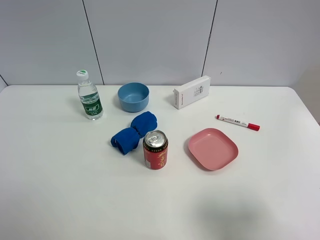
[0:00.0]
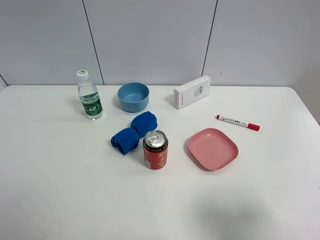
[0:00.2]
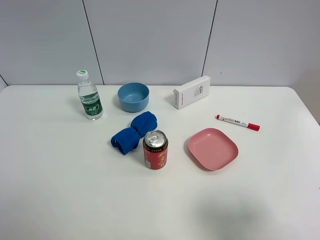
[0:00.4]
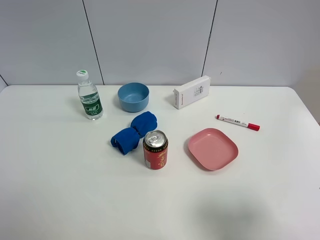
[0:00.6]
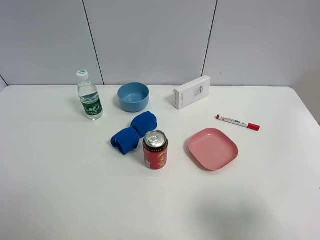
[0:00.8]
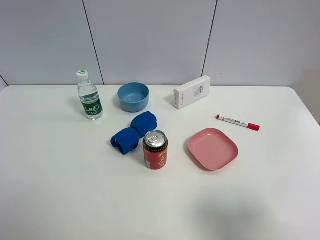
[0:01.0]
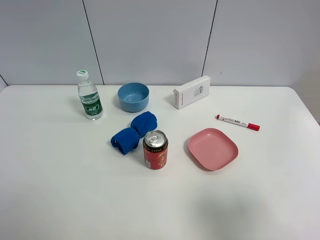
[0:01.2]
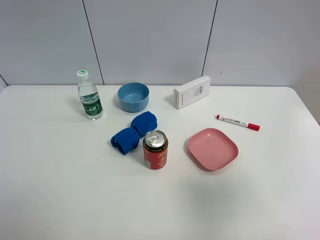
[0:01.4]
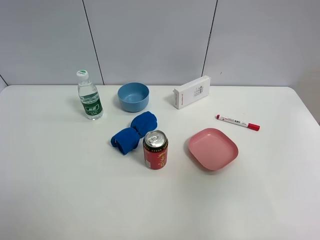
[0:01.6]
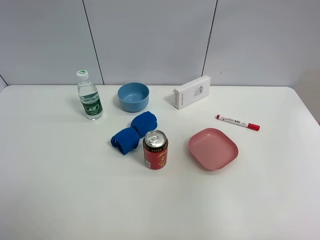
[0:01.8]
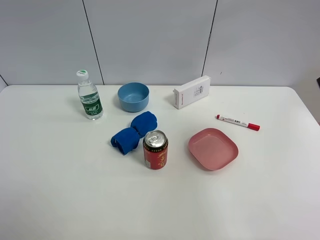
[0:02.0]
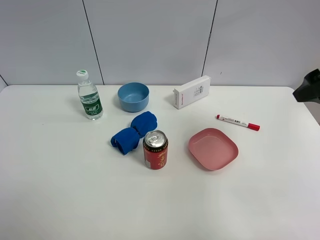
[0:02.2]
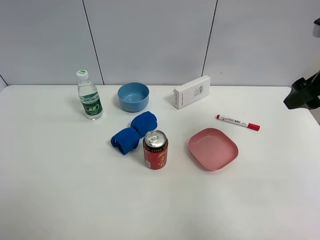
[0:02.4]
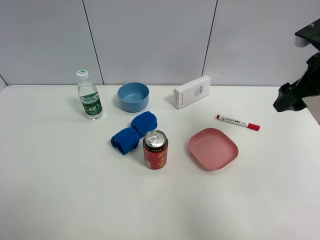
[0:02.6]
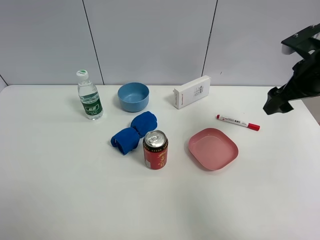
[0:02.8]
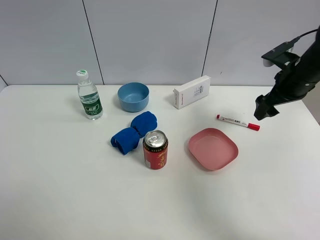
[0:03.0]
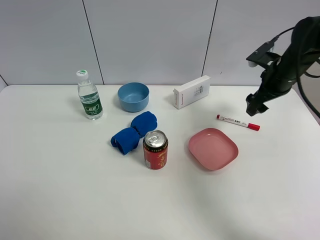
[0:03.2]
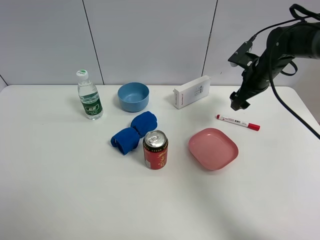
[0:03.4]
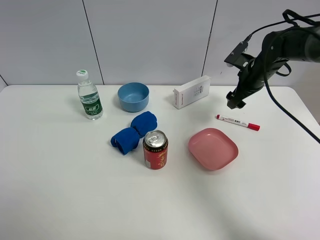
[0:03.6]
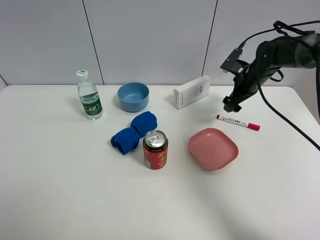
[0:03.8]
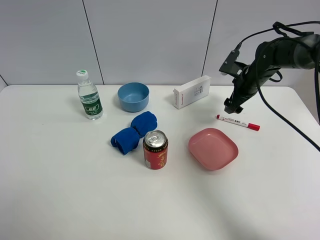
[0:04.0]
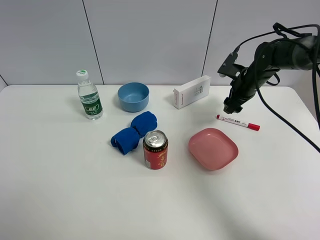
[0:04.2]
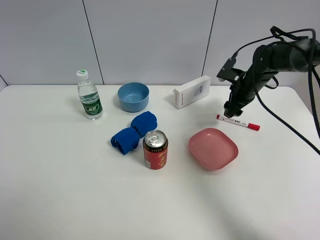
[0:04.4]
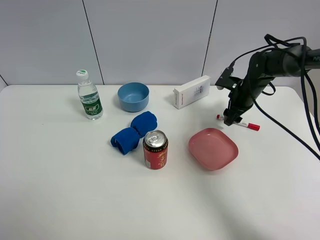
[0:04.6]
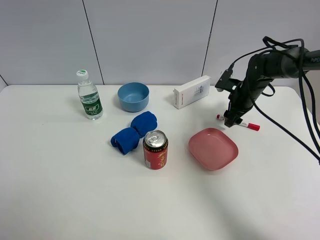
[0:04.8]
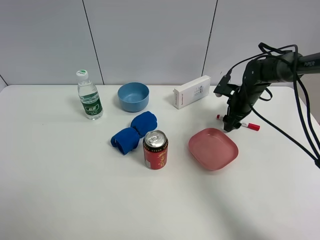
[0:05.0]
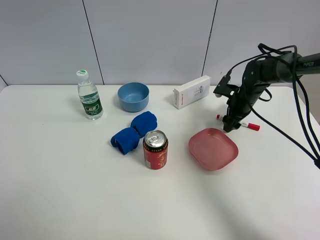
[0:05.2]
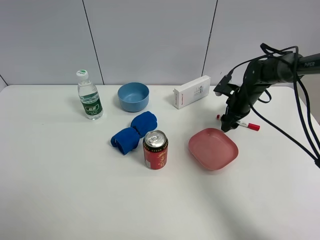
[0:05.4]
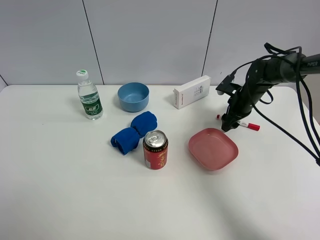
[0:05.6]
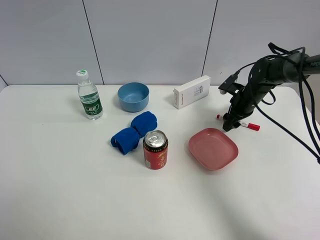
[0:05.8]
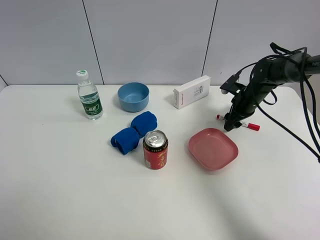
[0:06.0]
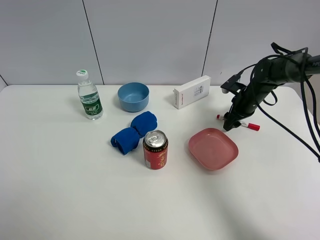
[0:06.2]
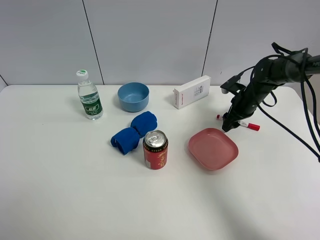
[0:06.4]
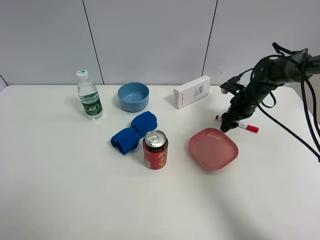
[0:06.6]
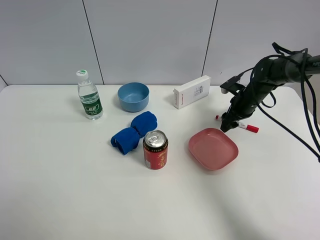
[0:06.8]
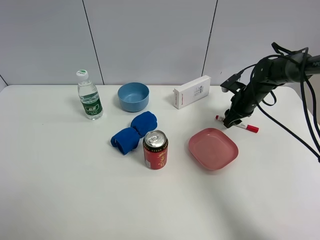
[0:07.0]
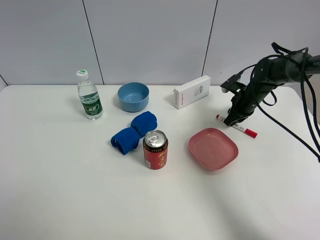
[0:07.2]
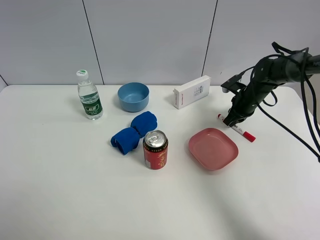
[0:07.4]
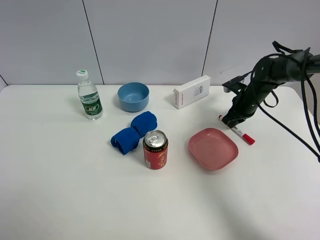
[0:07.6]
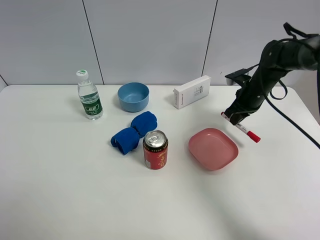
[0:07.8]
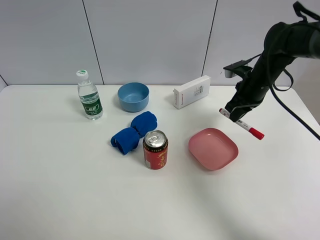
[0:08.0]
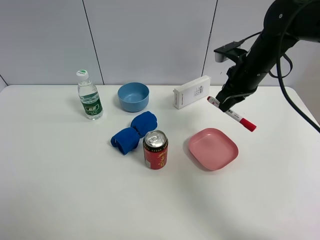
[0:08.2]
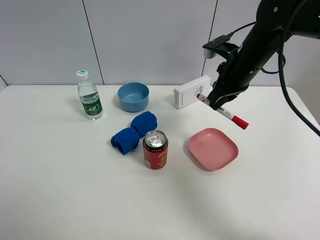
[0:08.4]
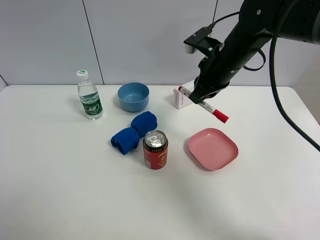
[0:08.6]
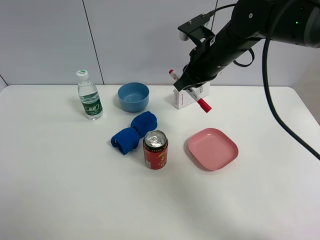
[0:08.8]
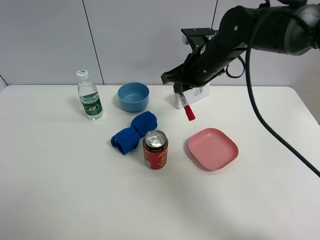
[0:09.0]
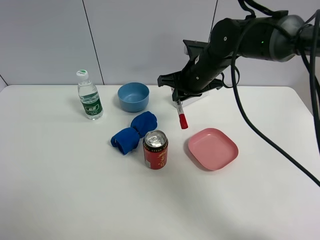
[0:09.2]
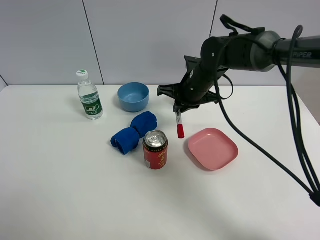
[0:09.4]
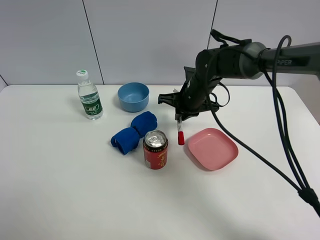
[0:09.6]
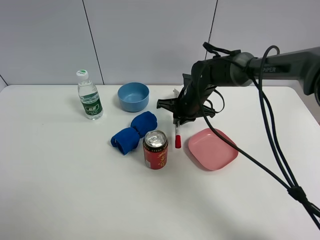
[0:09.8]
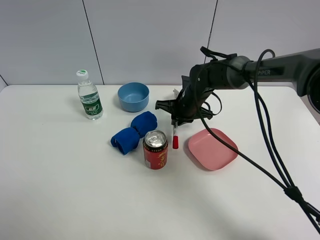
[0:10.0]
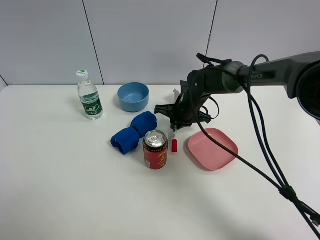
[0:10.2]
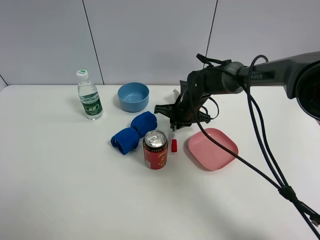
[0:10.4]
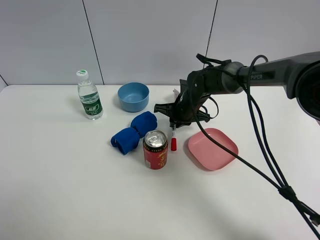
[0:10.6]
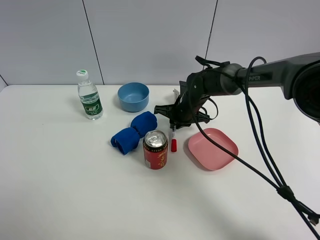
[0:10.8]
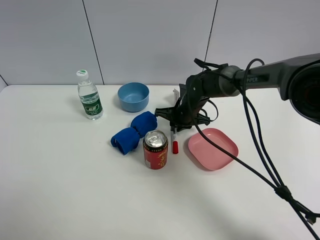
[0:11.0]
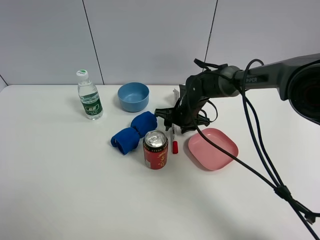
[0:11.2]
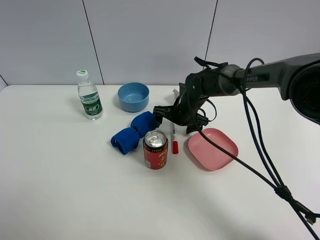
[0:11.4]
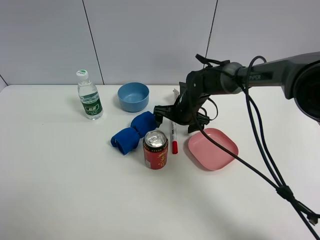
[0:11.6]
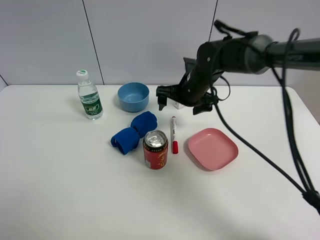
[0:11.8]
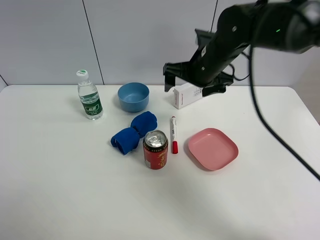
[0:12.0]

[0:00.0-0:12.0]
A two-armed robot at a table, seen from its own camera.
Task of the whole recording: the gripper move the object.
Step, 0.0 to 7.4 s: Grasp the red marker pen with the right gripper.
Step, 7.6 to 11.2 s: Place the red marker pen on the table with the right gripper.
0.0 to 1.6 s: The right gripper shifts roughly 15 cm upward and forward.
1.6 to 3.0 s: The right gripper heads forward and downward, covering about 30 cm.
3.0 to 4.4 s: The right gripper shifts approximately 10 cm downward and forward, and closes up.
4.4 to 6.0 s: There are only small adjustments of the grippers.
6.0 to 7.6 s: The right gripper closes its fingers.
7.6 to 9.0 s: The right gripper heads to the left and upward, covering roughly 20 cm.
9.0 to 10.4 s: The right gripper goes approximately 15 cm downward.
10.4 to 12.0 s: The right gripper heads upward, covering some 15 cm, and opens up.

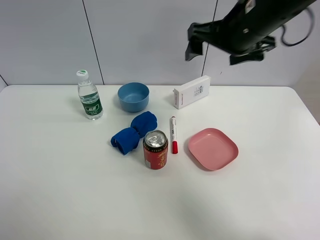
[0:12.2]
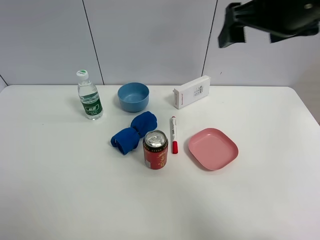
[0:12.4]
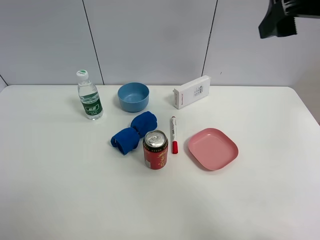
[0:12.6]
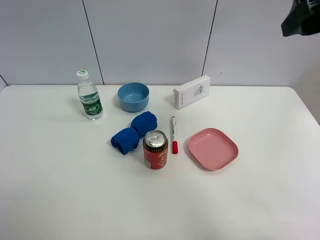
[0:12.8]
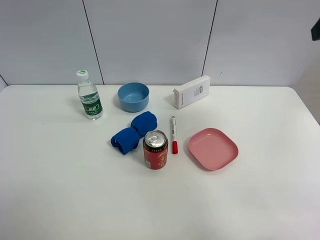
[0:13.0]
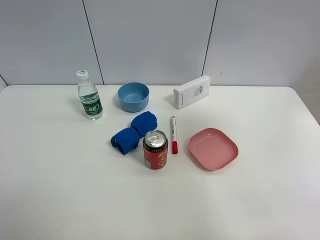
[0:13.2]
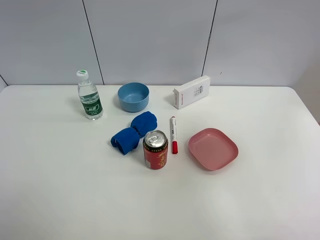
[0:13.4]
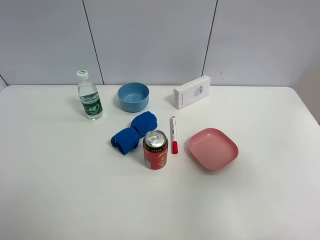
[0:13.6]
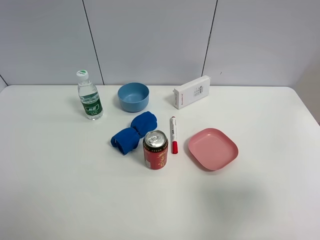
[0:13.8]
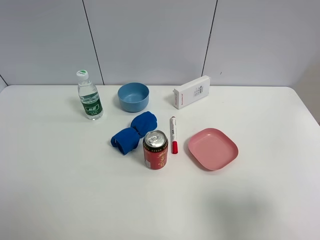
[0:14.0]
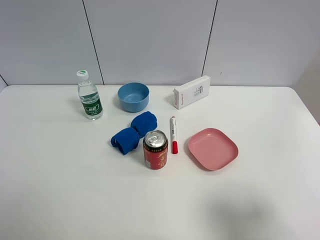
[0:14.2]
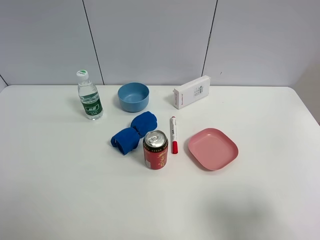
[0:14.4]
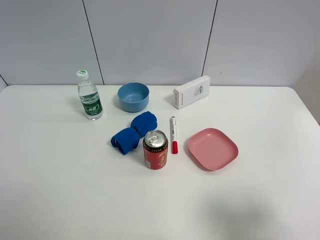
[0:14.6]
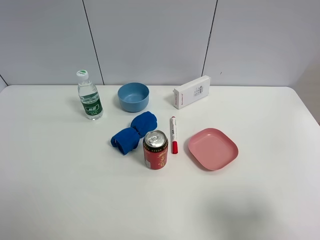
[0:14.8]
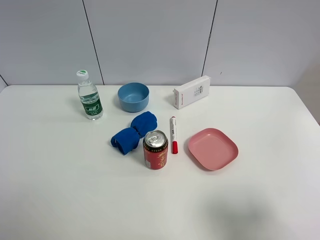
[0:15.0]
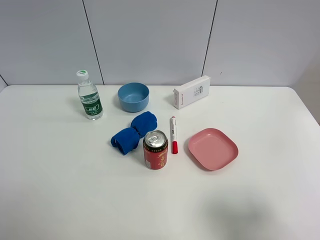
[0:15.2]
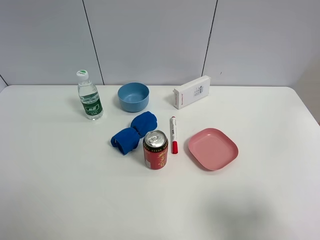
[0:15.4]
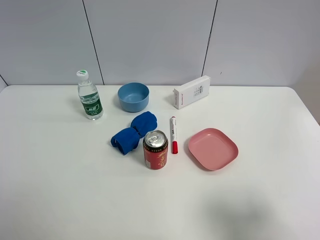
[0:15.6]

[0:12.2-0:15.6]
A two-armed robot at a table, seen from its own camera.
Task of the whole recording: the gripper move the object.
12.2 to 13.8 s: The right gripper moves backward and to the right, about 30 cm.
13.8 to 15.6 s: The grippers stay close to where they were, moving slightly.

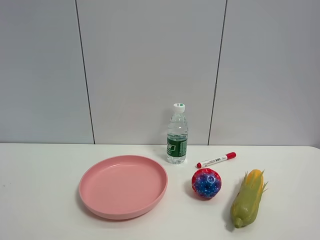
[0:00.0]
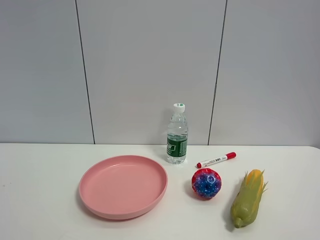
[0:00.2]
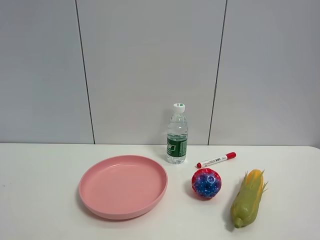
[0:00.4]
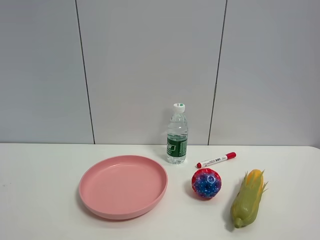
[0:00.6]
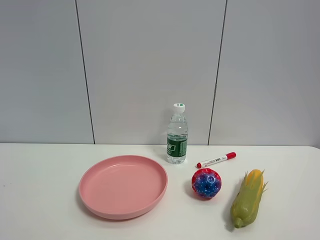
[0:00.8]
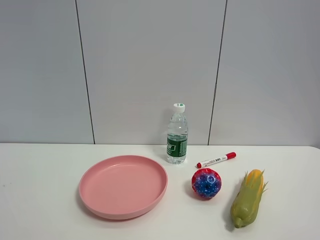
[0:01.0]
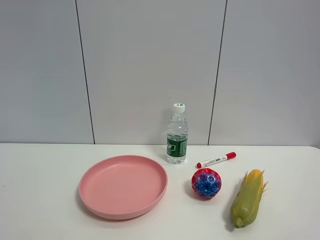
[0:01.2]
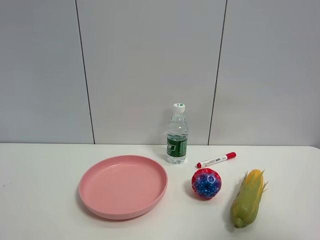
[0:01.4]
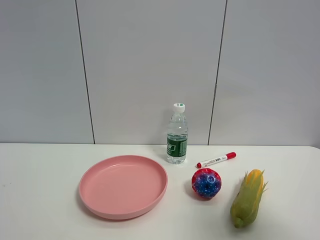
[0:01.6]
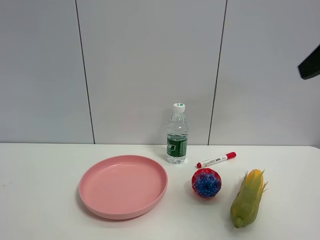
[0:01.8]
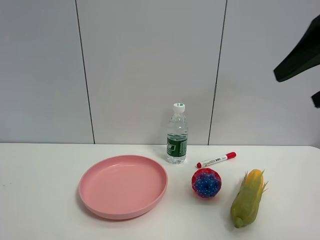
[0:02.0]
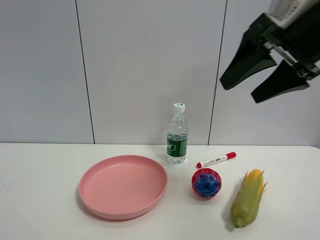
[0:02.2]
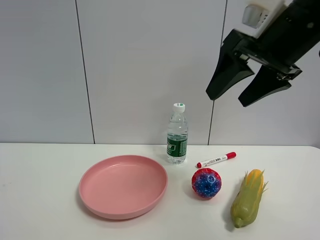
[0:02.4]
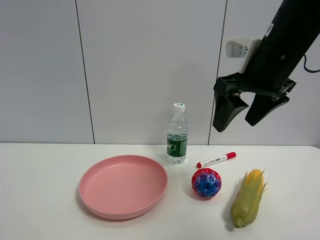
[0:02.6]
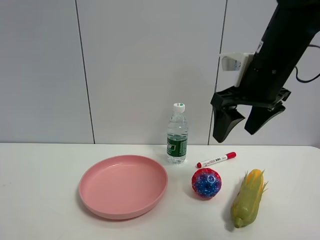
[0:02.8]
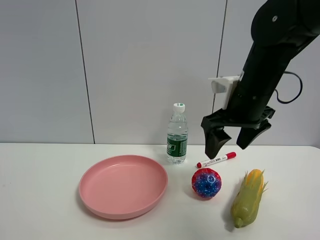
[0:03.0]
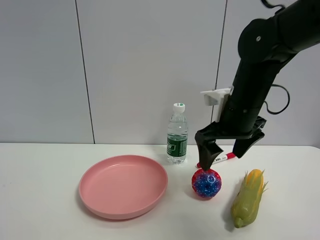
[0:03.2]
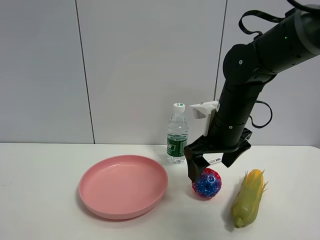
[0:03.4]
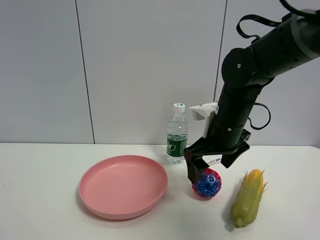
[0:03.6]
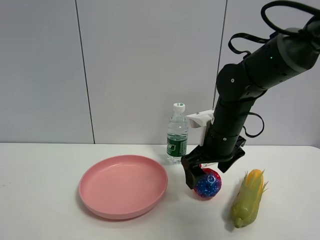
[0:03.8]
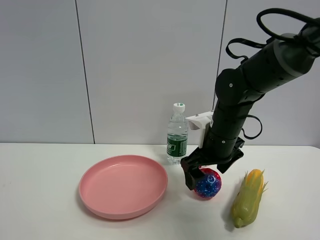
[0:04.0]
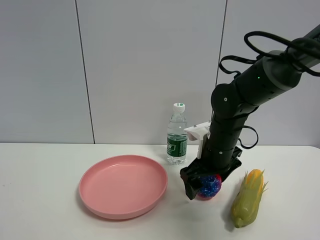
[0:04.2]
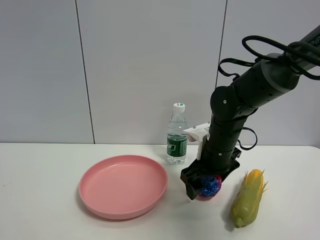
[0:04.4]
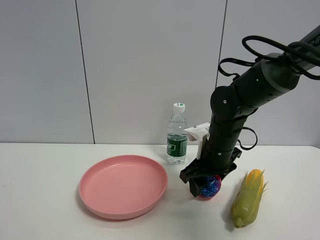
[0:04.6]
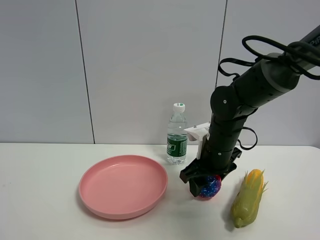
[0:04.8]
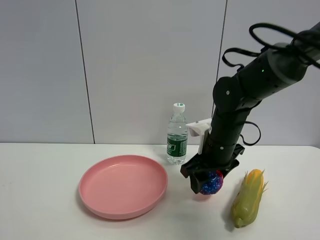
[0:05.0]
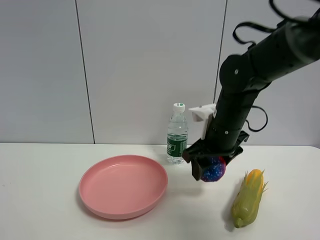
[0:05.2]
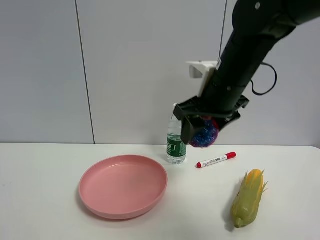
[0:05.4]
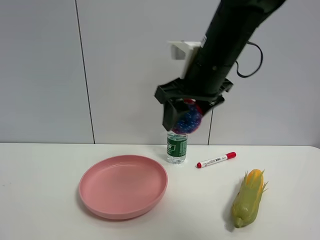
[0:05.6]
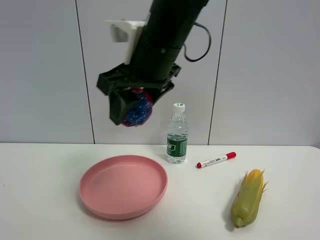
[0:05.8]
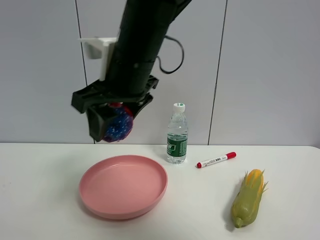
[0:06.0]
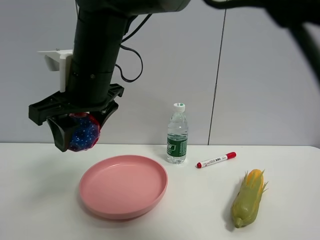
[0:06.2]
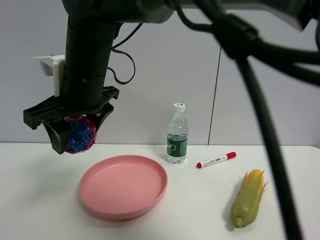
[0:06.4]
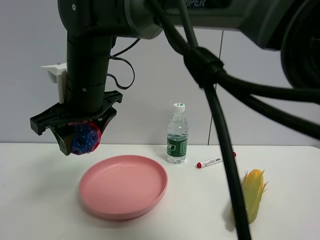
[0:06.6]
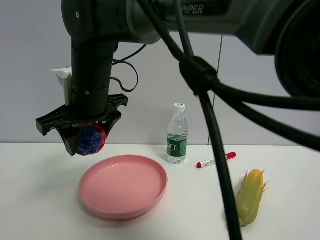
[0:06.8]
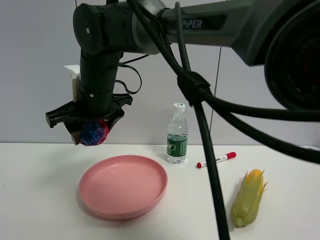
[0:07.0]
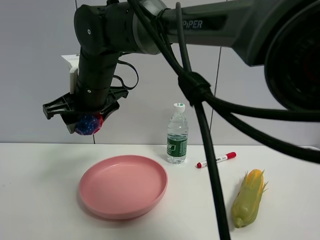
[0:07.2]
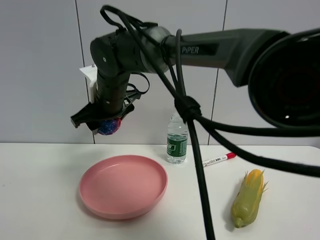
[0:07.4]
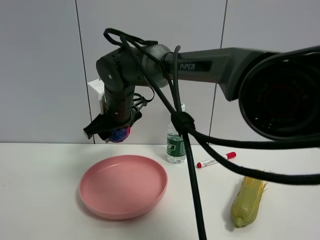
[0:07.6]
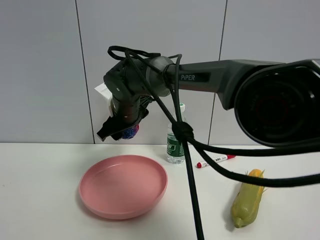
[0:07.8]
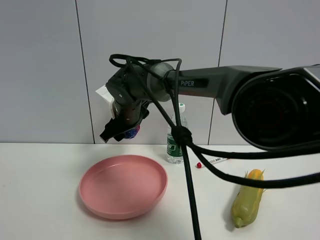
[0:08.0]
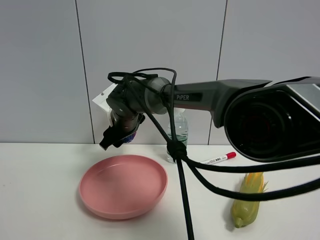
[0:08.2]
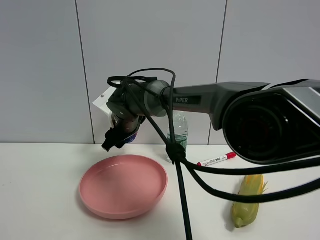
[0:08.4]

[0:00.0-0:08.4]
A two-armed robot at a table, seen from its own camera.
Task of the whole recording: the gripper move the object.
Step, 0.0 to 4.8 s: Grasp the colorful ball with the right gripper.
0.0 to 1.4 s: The right gripper moves upward and forward, roughly 10 cm.
1.4 to 2.8 s: The right gripper moves forward and to the left, roughly 30 cm, and closes up.
2.8 to 4.2 s: The right gripper heads downward, covering roughly 15 cm, and opens up.
4.2 to 5.6 s: The right gripper goes about 15 cm upward, and closes up.
5.6 to 7.0 s: The right gripper goes approximately 20 cm to the left.
7.0 to 8.4 s: The right gripper is displaced downward and forward by some 15 cm.
